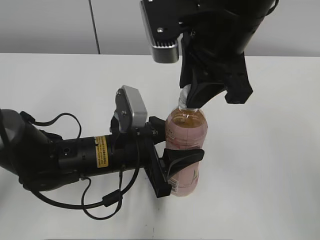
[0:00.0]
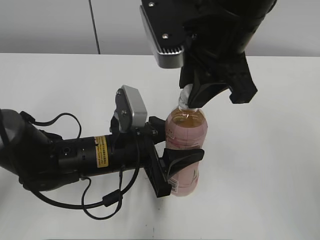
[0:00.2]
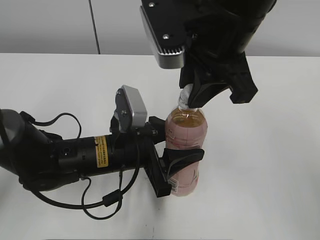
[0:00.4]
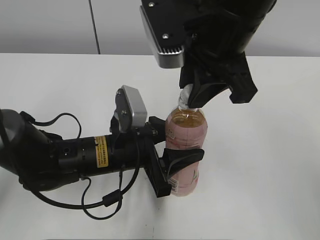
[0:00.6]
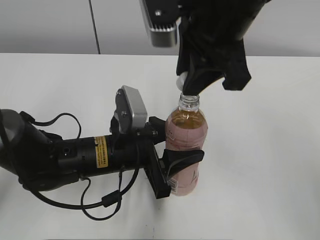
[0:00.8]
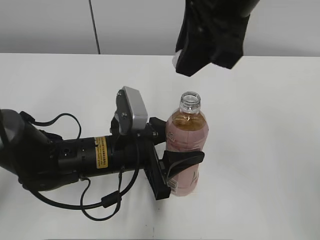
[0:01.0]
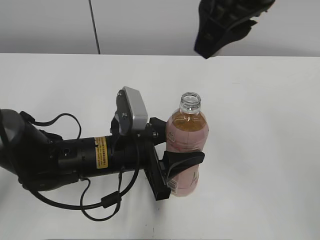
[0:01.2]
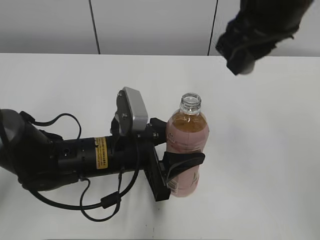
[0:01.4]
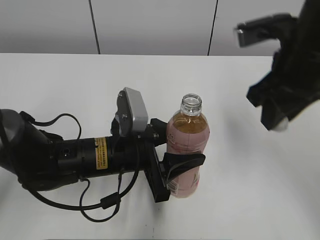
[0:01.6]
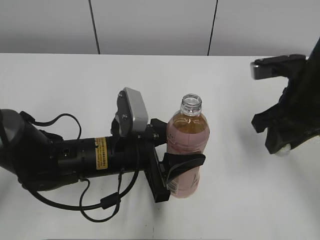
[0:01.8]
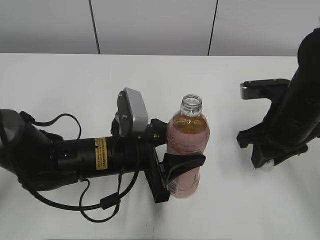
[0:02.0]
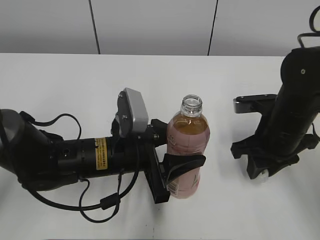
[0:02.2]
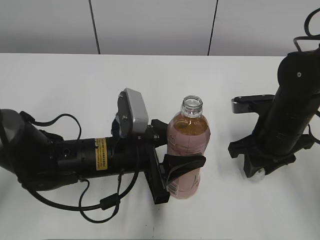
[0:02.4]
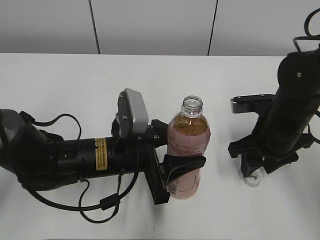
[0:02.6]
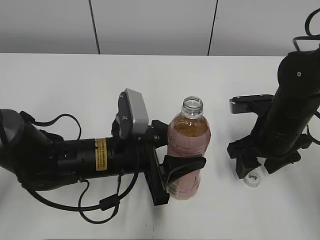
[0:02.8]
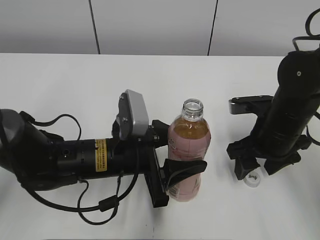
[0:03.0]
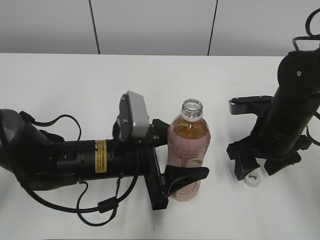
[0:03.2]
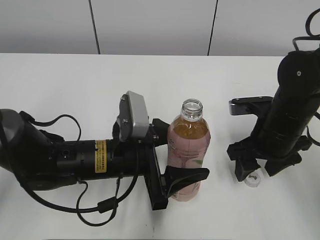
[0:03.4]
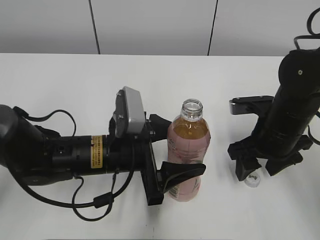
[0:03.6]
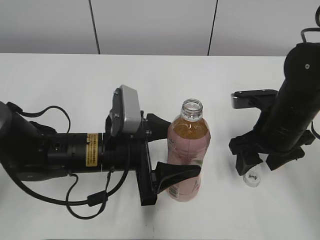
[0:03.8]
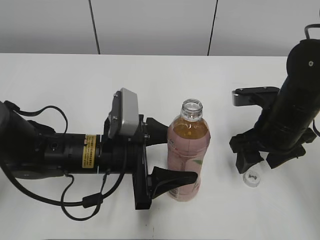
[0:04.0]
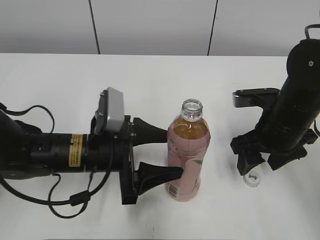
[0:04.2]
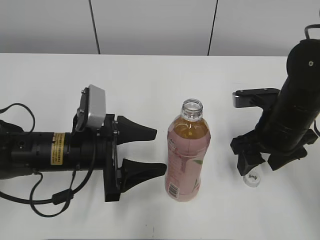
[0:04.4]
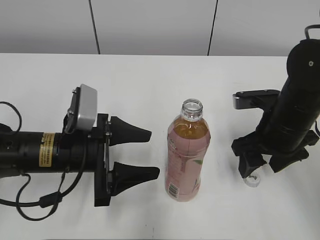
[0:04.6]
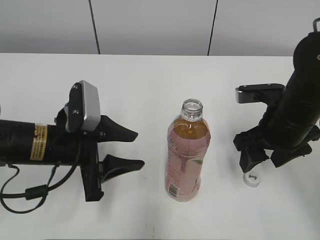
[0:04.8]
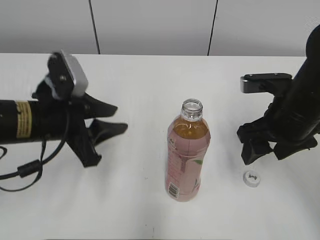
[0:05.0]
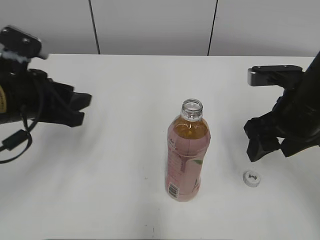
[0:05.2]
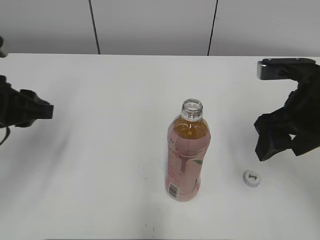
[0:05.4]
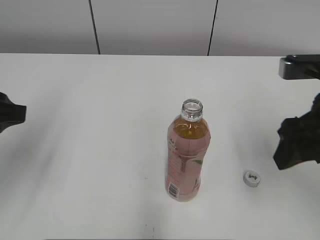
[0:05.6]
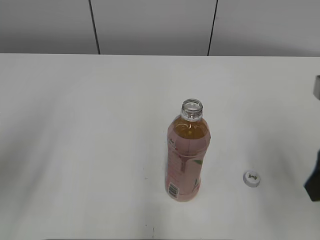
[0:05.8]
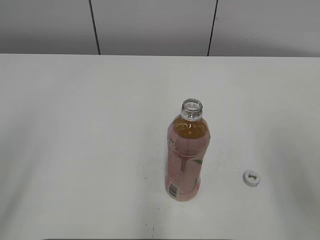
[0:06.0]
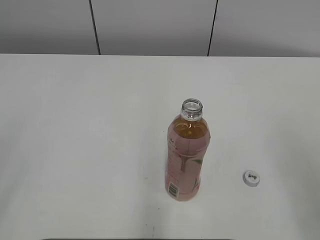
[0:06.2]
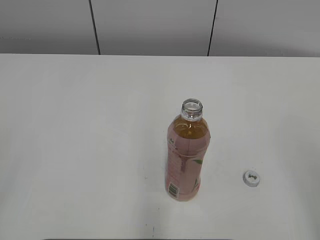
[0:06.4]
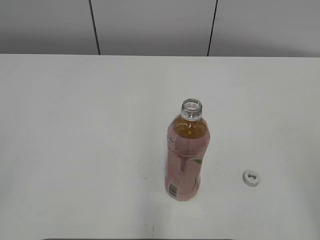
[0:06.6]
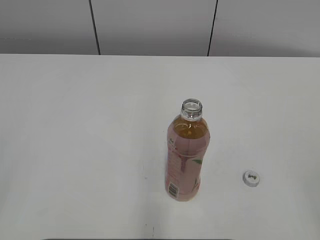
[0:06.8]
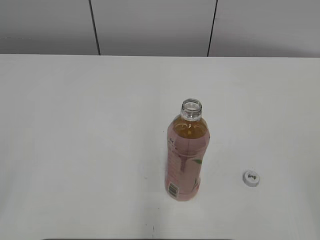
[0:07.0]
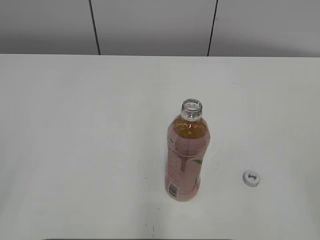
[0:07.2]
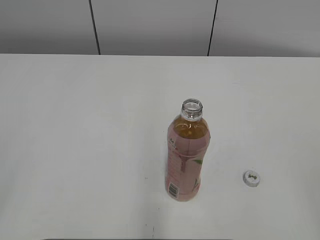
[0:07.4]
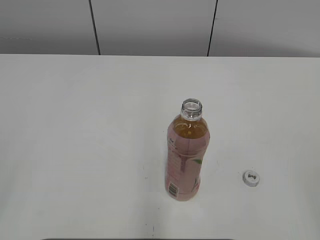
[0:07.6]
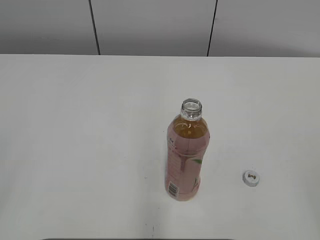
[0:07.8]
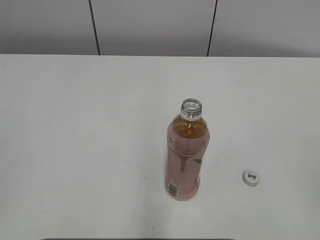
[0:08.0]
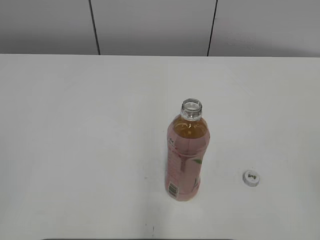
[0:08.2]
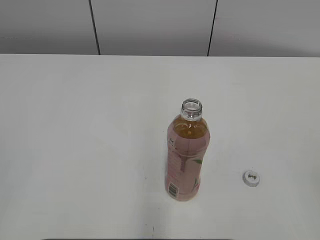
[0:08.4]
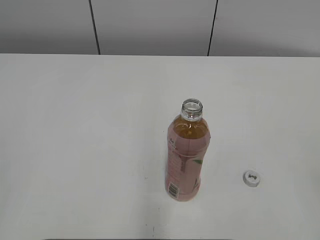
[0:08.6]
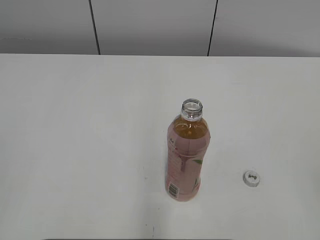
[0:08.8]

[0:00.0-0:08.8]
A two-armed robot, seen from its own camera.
Step, 0:00.8 to 0:02.6: Place the bottle cap on the table with the right gripper.
Step, 0:02.8 to 0:03.2: Place the bottle on the table with the left gripper.
0:00.0 to 0:01.4: The right gripper moves approximately 5 cm.
0:01.4 to 0:03.0: The right gripper heads downward, covering roughly 20 cm, and opens.
0:03.0 to 0:04.4: The left gripper moves to the left, about 5 cm.
0:04.4 to 0:05.8: The left gripper travels upward, to the left and backward by approximately 20 cm, and closes its fingers; the right gripper heads backward and upward, covering some 15 cm.
0:05.8 to 0:07.4: The right gripper is displaced backward and to the right by approximately 20 cm. The left gripper shifts roughly 15 cm backward.

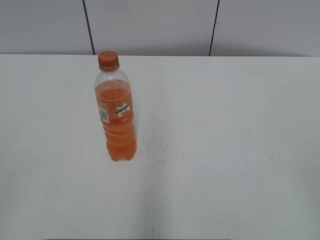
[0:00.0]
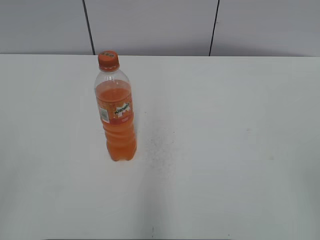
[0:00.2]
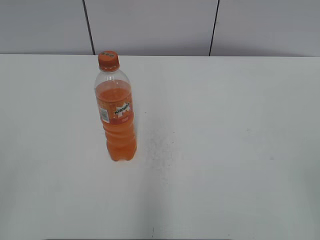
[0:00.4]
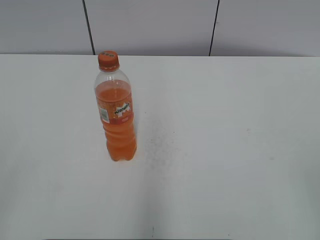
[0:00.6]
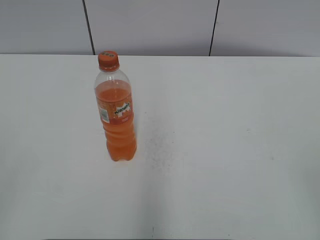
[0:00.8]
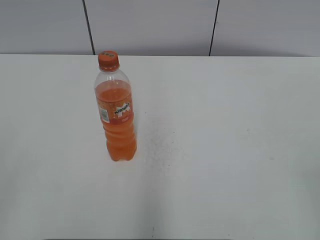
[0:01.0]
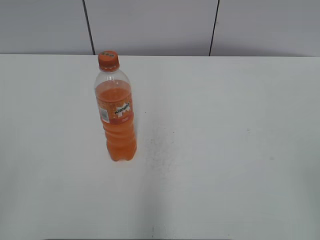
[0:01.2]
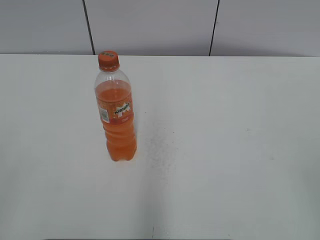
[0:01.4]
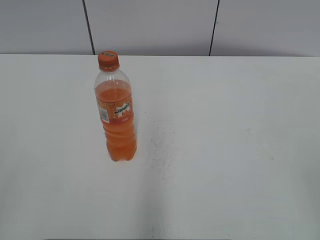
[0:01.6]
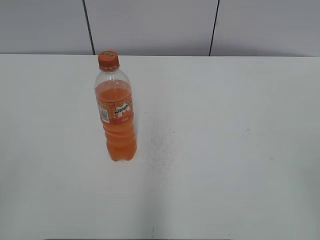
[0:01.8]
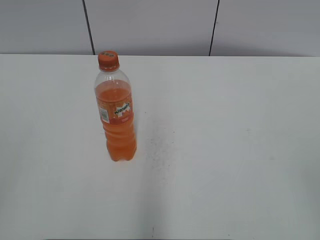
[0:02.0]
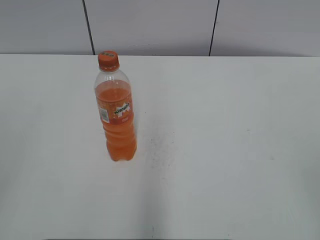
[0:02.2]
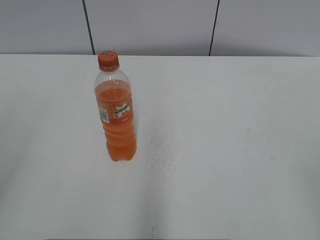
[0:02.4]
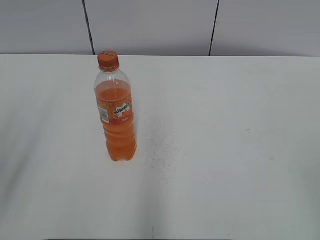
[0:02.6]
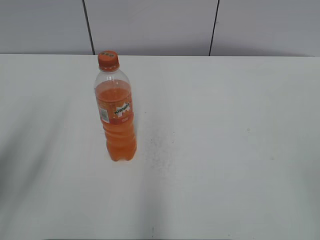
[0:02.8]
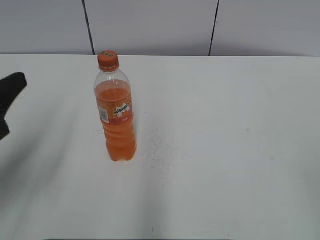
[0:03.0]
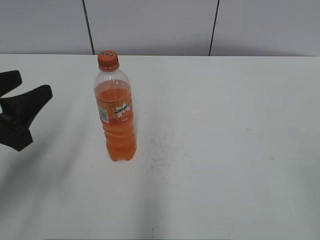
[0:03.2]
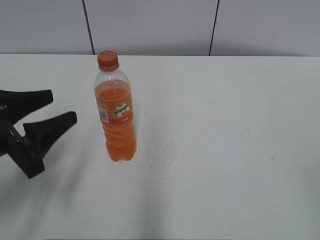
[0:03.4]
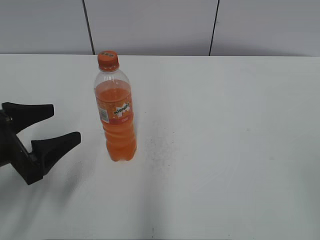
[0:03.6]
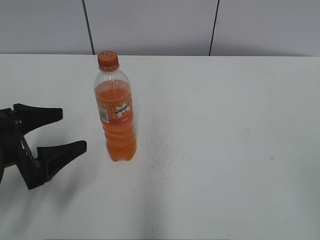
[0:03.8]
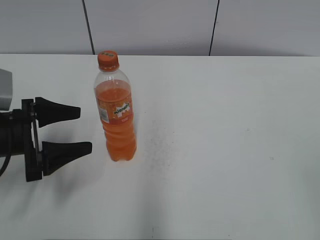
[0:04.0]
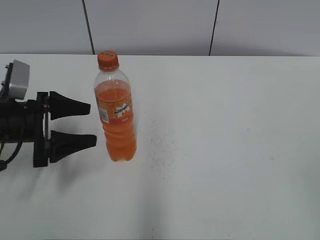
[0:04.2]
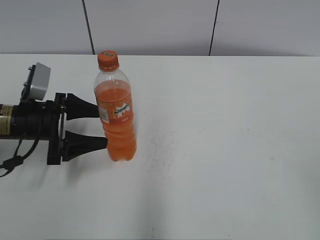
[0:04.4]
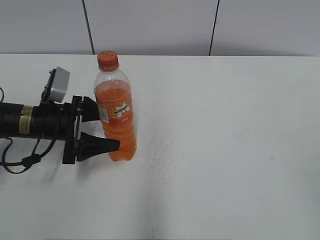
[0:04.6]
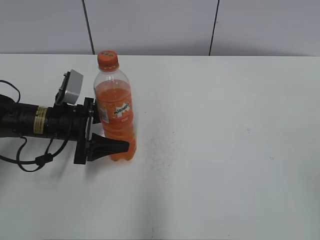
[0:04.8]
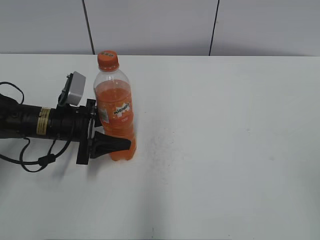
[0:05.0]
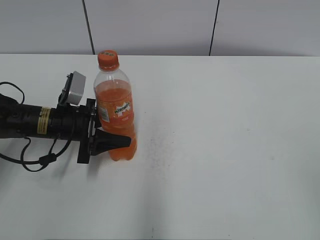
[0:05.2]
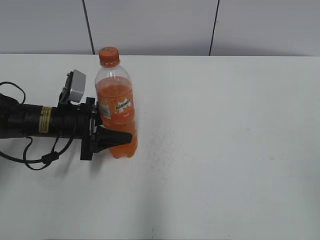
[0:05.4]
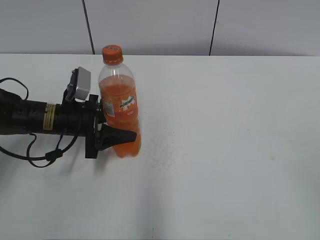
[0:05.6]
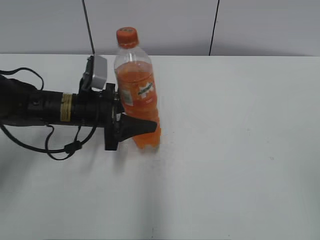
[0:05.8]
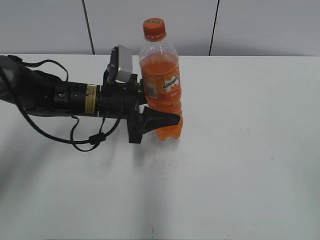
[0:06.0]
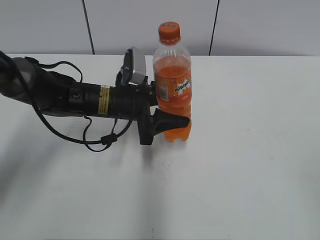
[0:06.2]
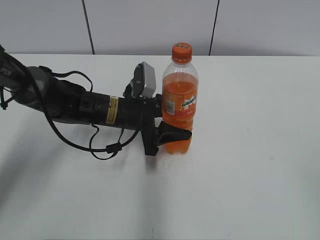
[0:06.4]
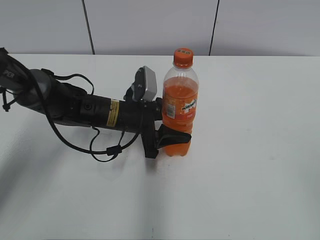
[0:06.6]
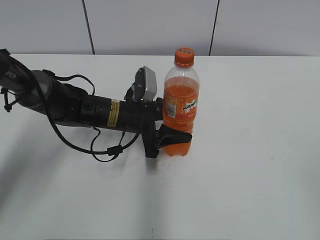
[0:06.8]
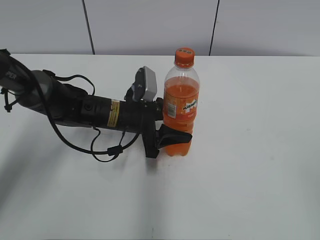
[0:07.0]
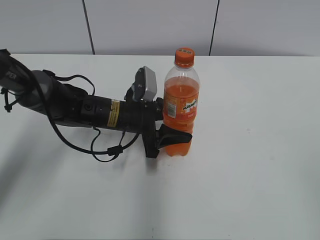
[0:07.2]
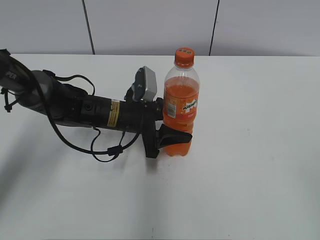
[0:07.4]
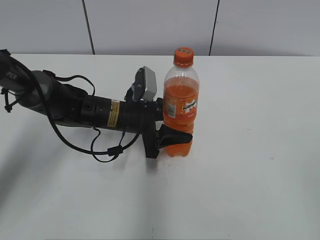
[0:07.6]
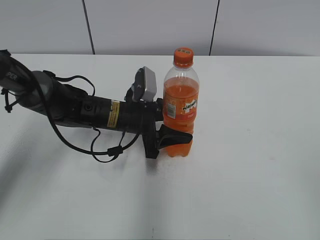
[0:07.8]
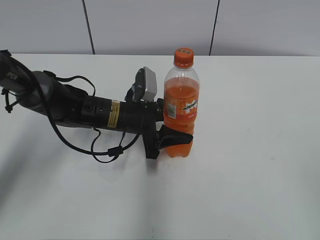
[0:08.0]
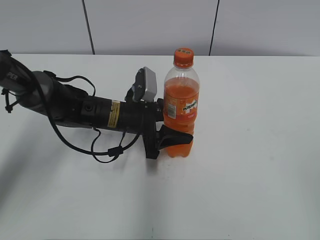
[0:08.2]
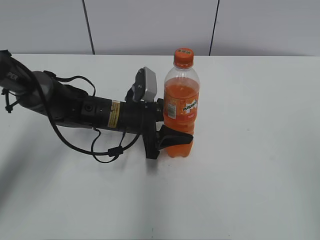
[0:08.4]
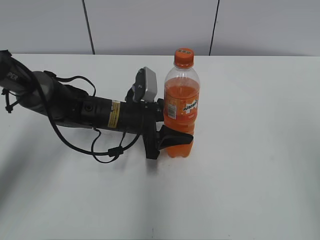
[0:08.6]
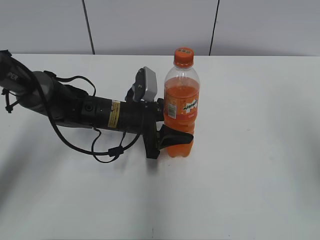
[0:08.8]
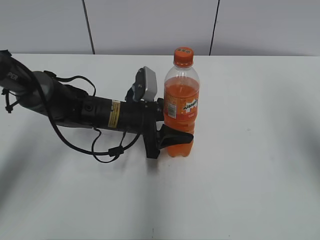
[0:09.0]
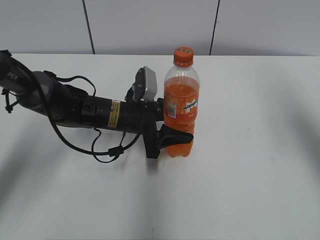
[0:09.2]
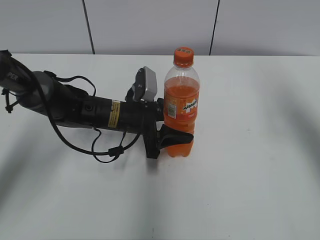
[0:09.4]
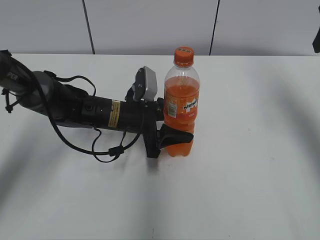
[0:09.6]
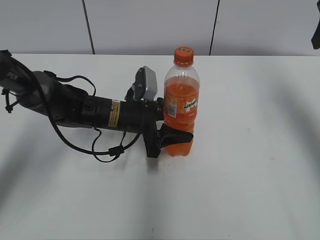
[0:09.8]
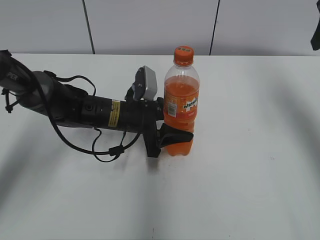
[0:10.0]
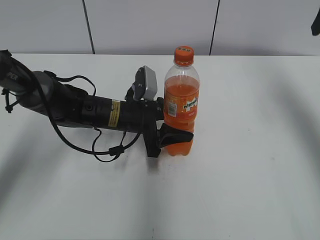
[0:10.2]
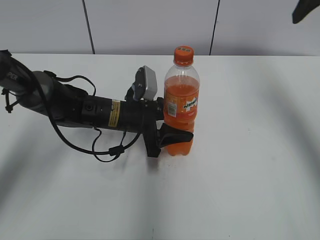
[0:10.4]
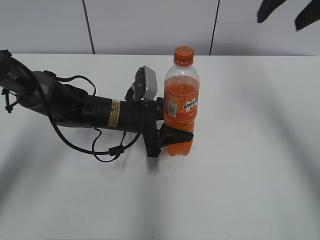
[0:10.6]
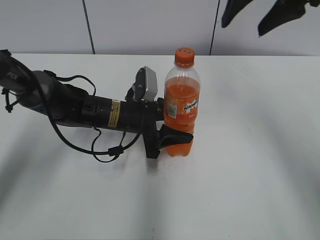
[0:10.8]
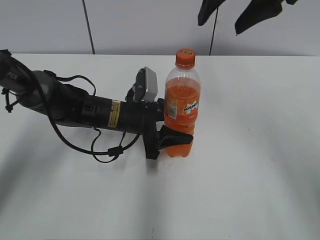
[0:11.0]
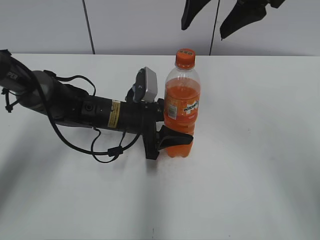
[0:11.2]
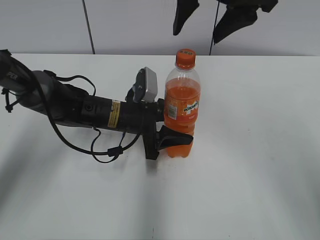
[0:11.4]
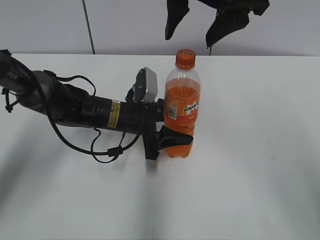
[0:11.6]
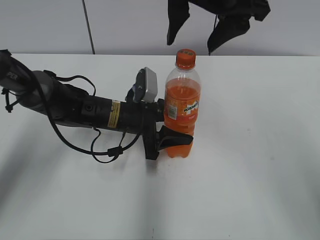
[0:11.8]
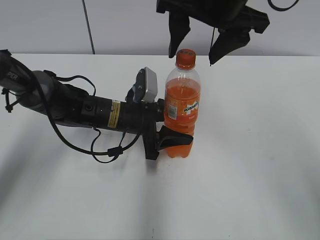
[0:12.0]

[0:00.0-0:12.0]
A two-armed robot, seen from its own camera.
Step, 0:00.0 to 0:05.2: Grab the Mirinda with the left hand.
Step, 0:05.6 to 0:06.4: Move the Mirinda from left to right.
0:01.6 to 0:03.0: The left gripper is displaced forward by some 15 cm.
0:03.0 to 0:04.4: The left gripper travels forward and downward by some 20 cm, and opens its fingers.
0:04.4 to 0:06.0: The left gripper heads to the right, covering roughly 10 cm, and closes.
0:06.0 to 0:07.6: The left gripper ends up approximately 5 cm from where it was.
0:07.6 to 0:09.0: The right gripper moves forward, about 20 cm.
0:09.0 to 0:10.4: The right gripper moves forward, roughly 15 cm.
0:10.4 to 0:12.0: The right gripper travels to the left by some 20 cm.

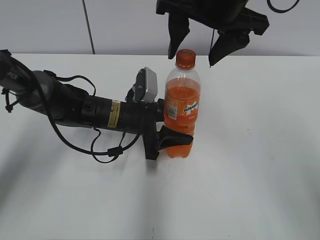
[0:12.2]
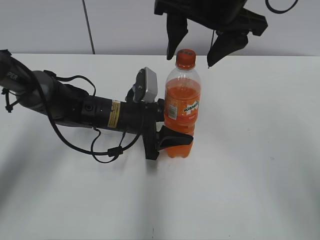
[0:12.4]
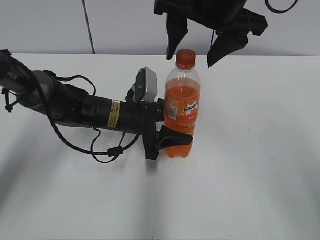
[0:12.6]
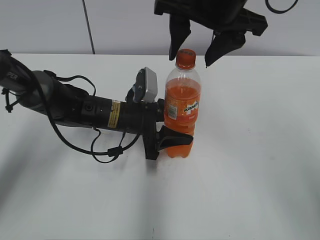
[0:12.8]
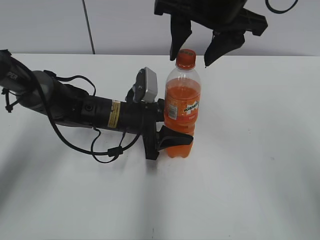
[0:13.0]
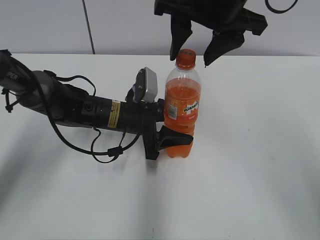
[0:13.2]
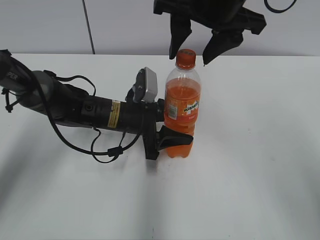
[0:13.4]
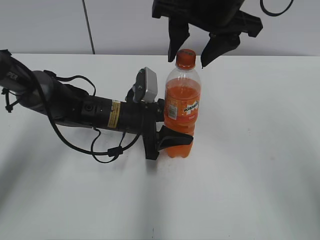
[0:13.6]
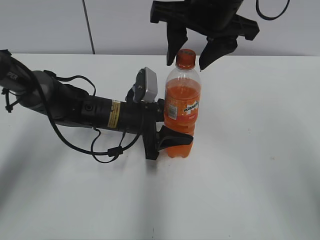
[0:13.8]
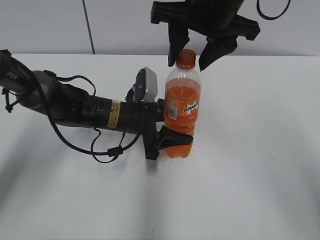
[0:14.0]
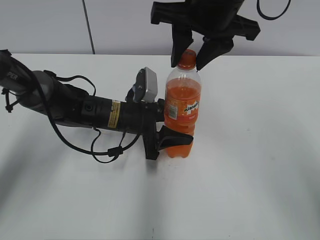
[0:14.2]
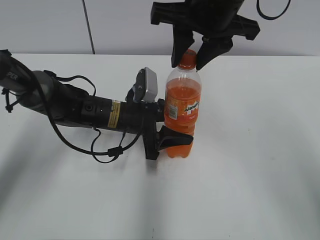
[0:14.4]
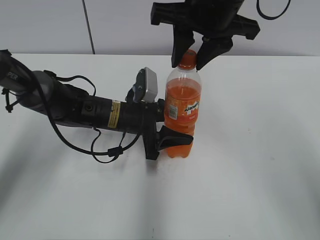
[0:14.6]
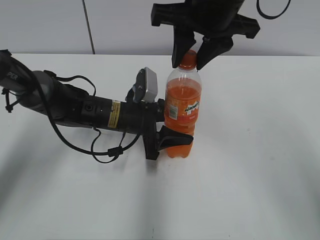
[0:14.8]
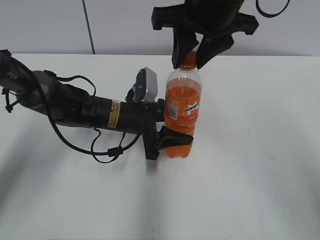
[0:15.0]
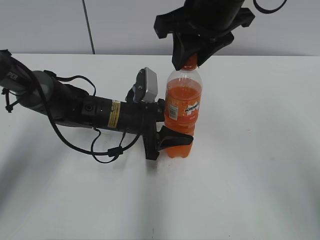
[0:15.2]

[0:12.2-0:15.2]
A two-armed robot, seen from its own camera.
0:12.2 to 0:13.8: Neither gripper changes place.
0:13.8 to 0:15.2: The right gripper closes.
